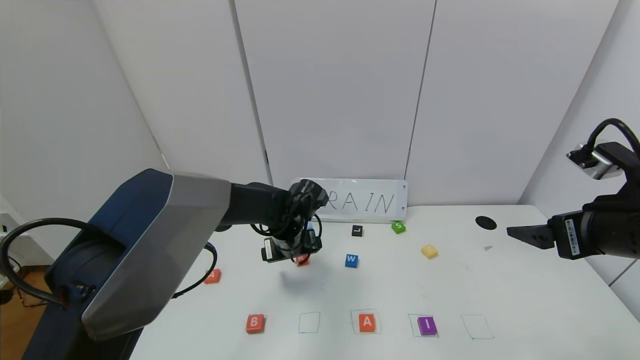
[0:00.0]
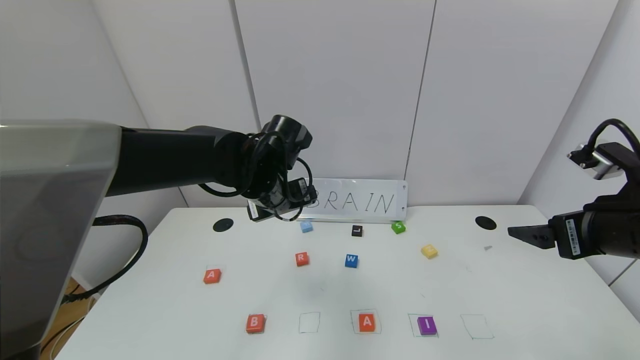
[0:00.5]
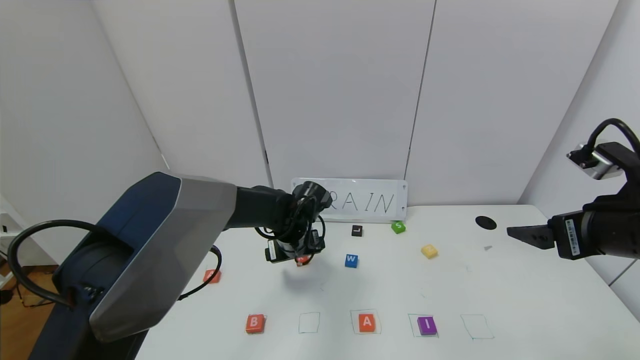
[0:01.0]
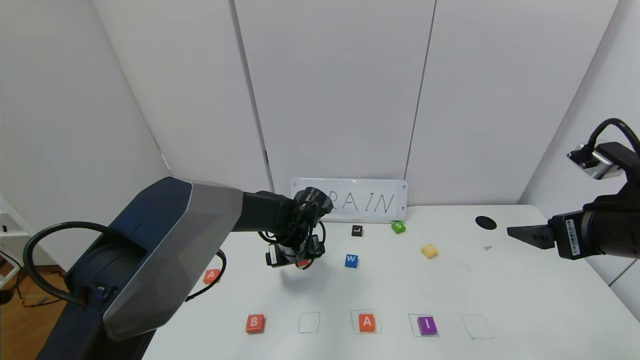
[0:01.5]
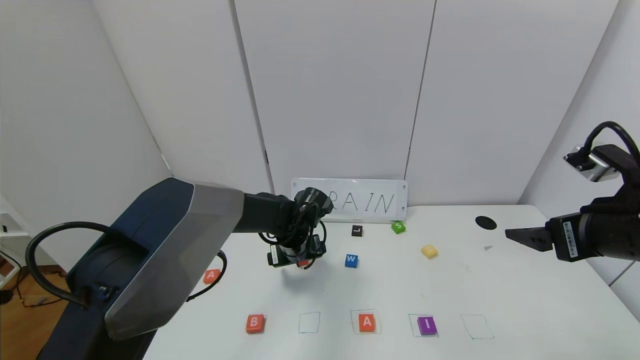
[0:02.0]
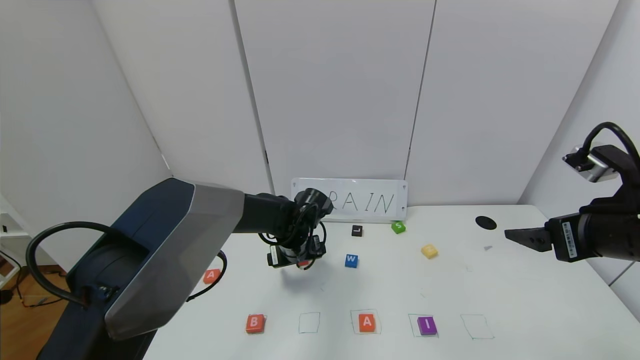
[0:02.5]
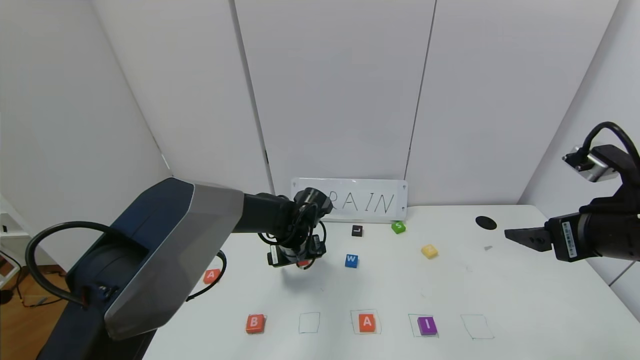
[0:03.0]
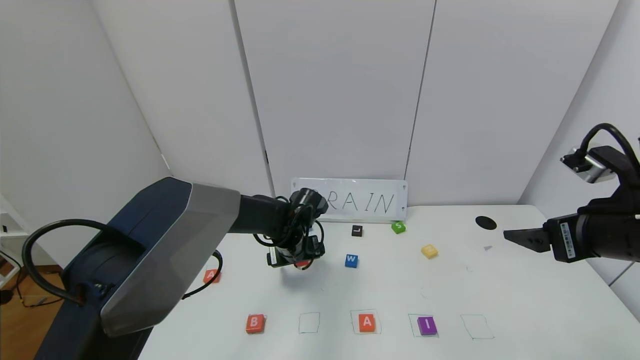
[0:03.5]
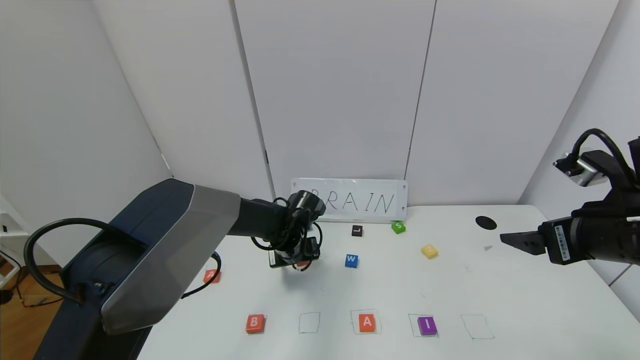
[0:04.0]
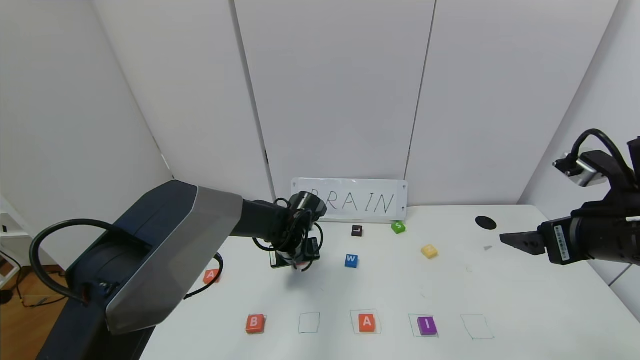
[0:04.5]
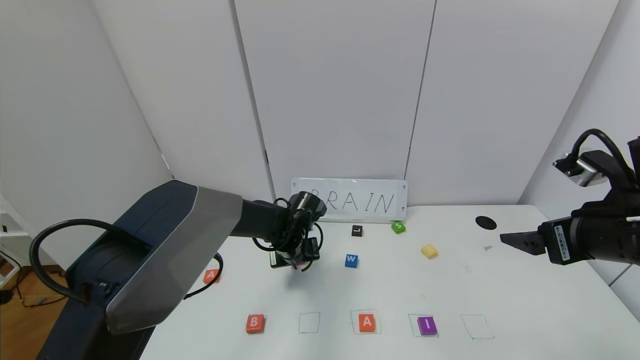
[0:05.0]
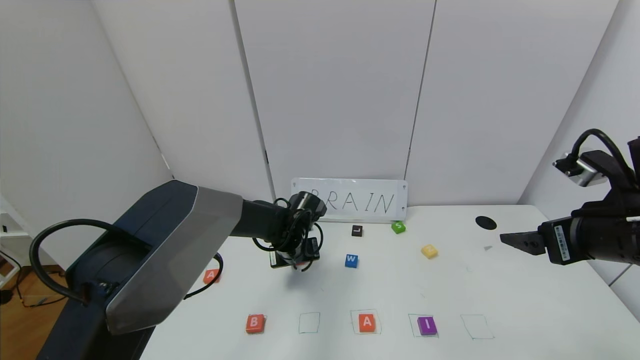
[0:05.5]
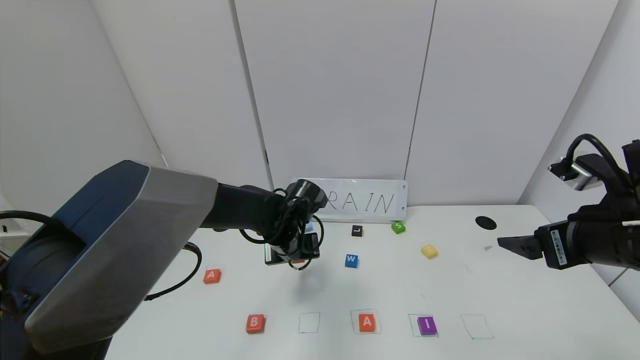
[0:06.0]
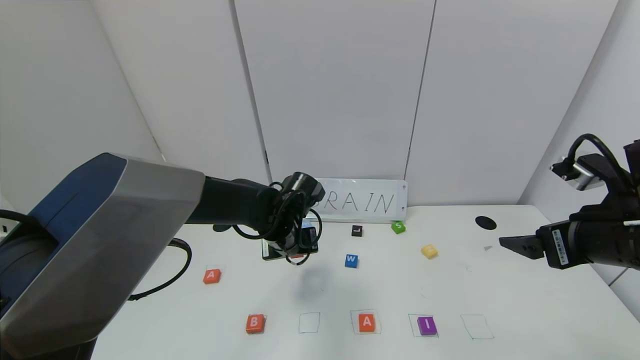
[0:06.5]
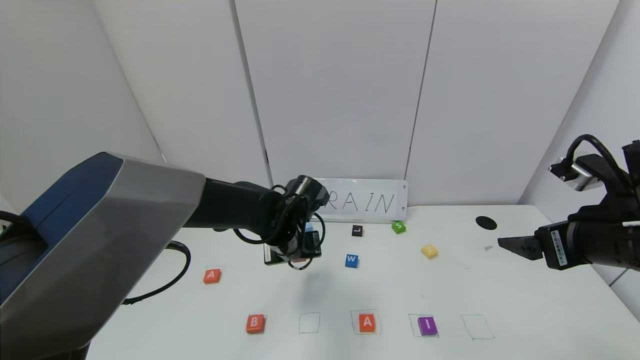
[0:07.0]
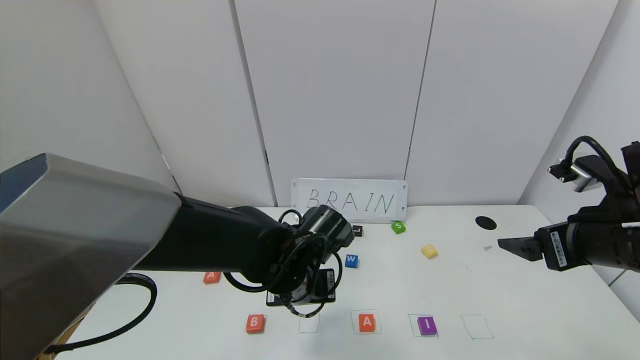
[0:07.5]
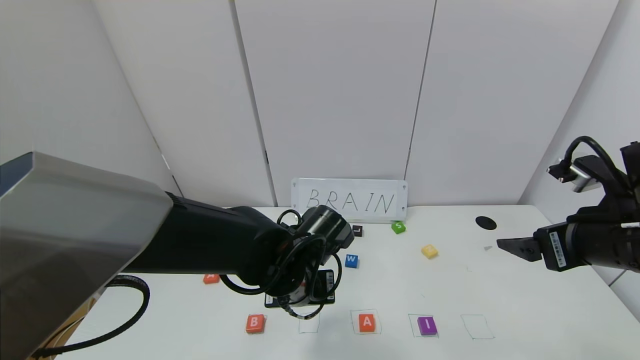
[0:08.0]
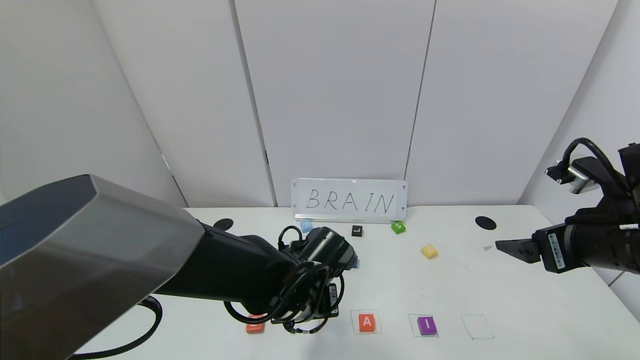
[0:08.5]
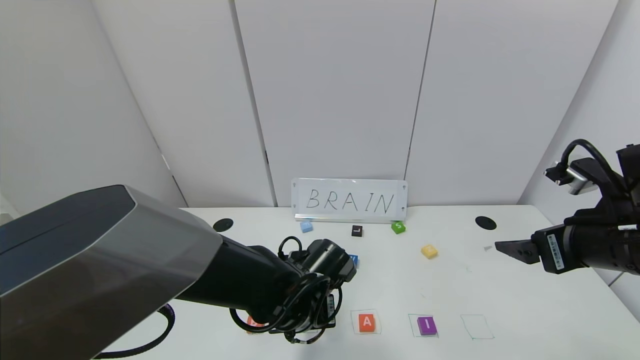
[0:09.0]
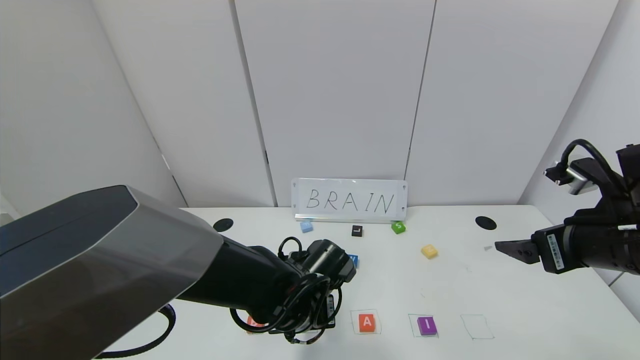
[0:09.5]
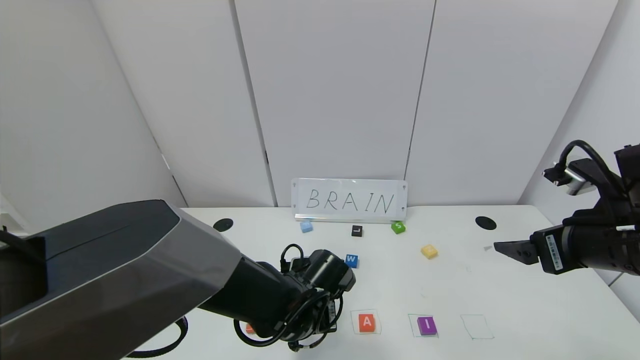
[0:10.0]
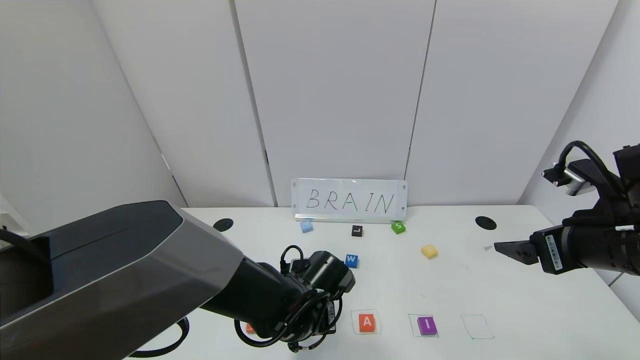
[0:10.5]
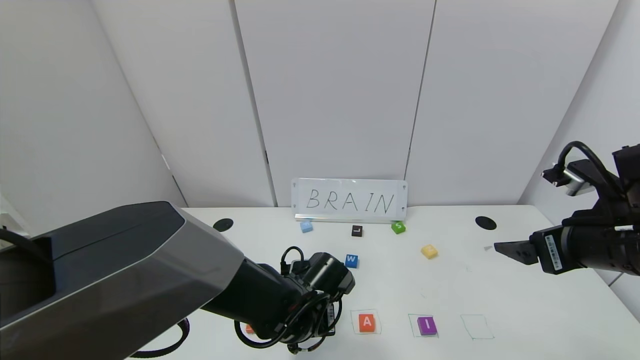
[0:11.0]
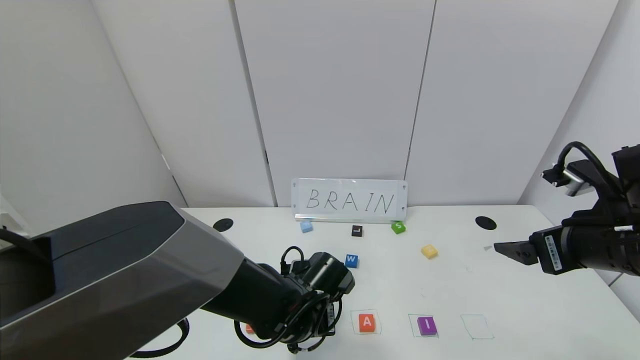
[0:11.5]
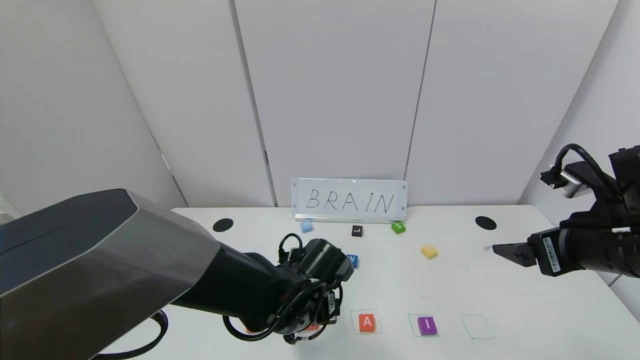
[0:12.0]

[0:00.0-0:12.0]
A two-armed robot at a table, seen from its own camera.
Task of the whole recording: use the gripper to find blocks with the letters b, a, a, and i on the table and arrange them into BAAI, then find r and N and turn the arranged baai into brian.
Step, 0:00.0 to 0:11.5: Place the block R in the second location.
0:00.0 to 0:02.0: The left gripper moves approximately 10 cm upward and comes back.
0:02.0 to 0:04.0: There are only small adjustments of the grippers.
0:04.0 to 0:06.0: The left gripper changes place by roughly 5 cm, and closes up.
0:06.0 to 0:08.0: The left gripper shifts roughly 10 cm backward.
0:08.0 to 0:10.0: The left gripper moves downward, roughly 10 cm.
0:10.0 to 0:12.0: The left gripper opens its fingers.

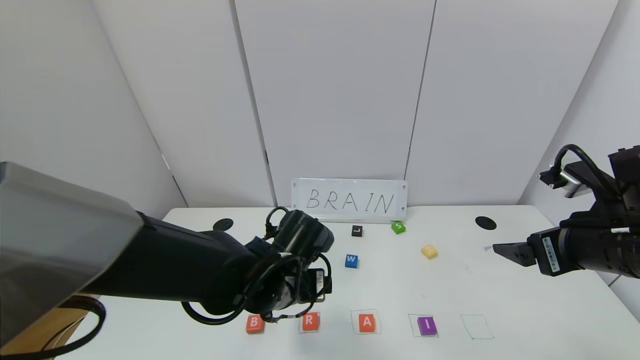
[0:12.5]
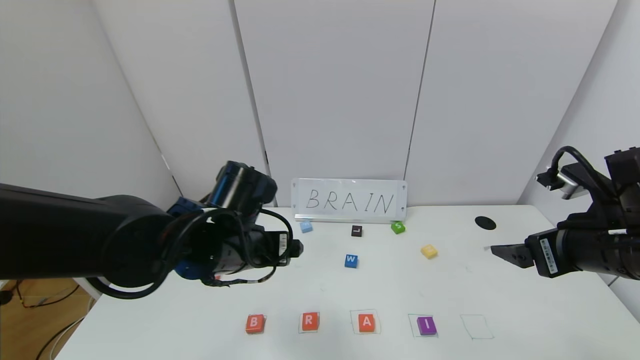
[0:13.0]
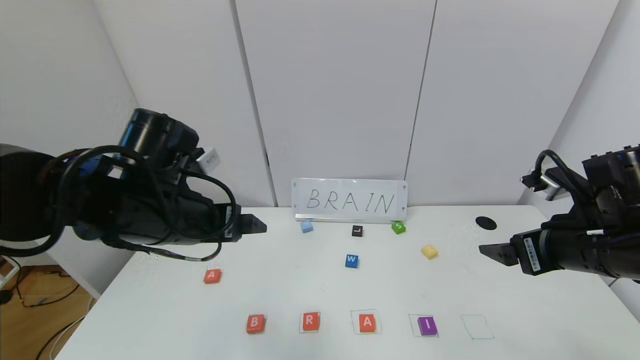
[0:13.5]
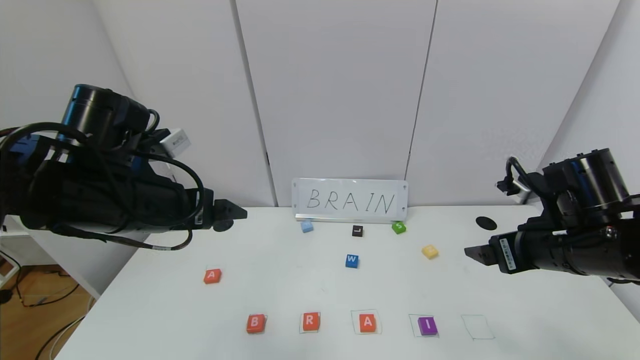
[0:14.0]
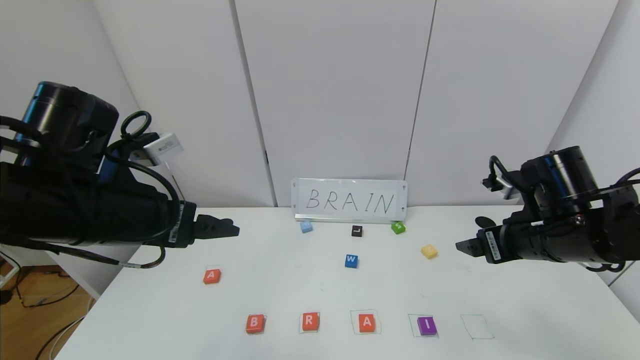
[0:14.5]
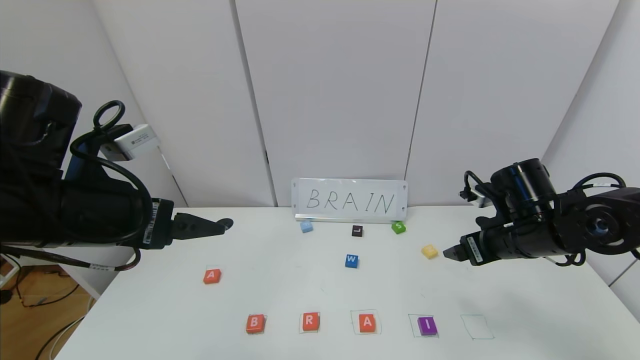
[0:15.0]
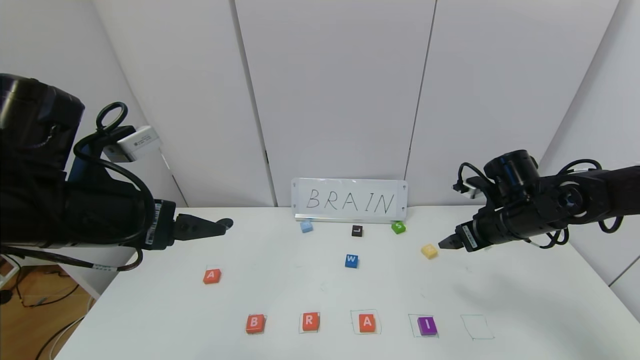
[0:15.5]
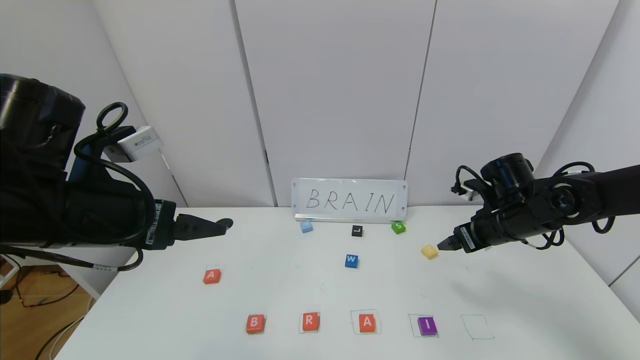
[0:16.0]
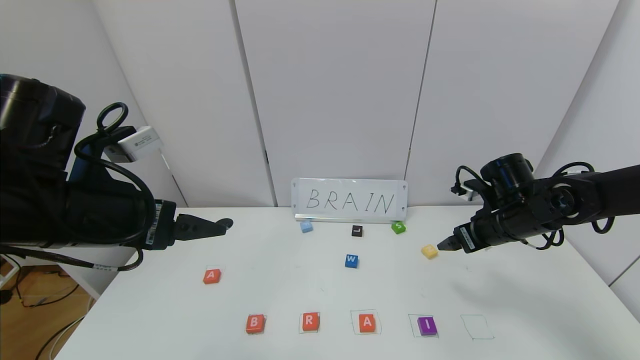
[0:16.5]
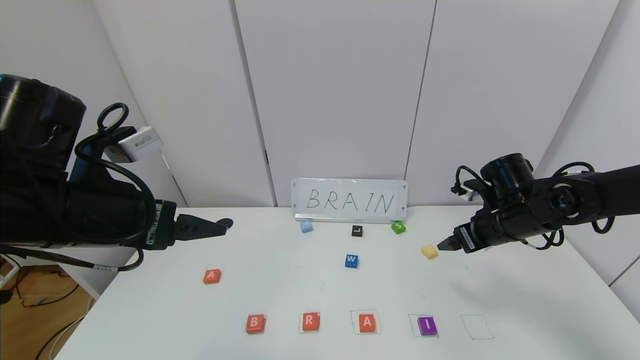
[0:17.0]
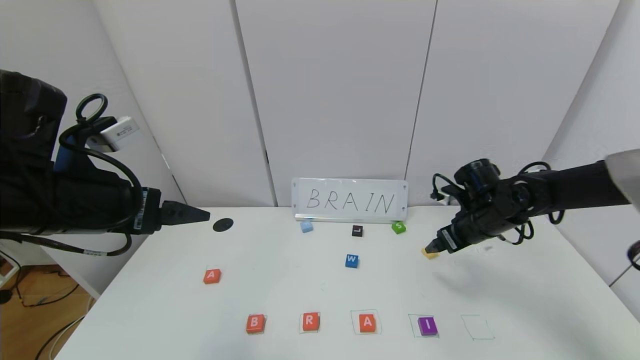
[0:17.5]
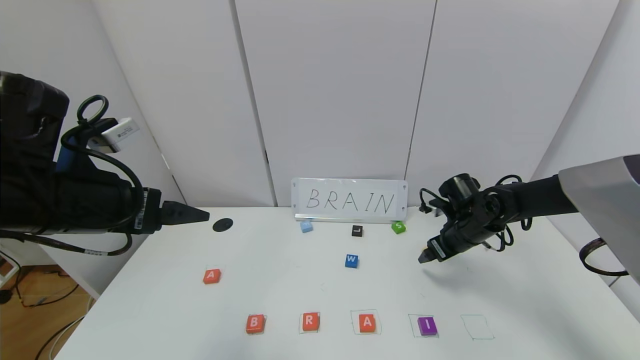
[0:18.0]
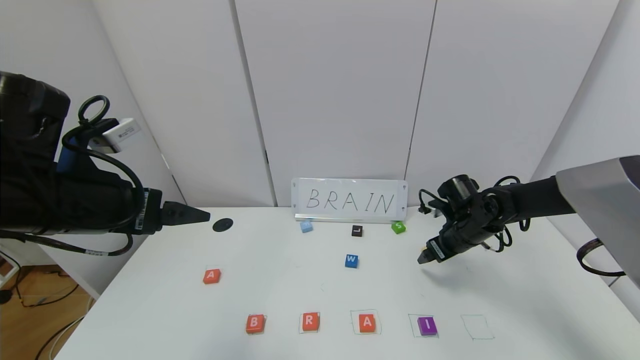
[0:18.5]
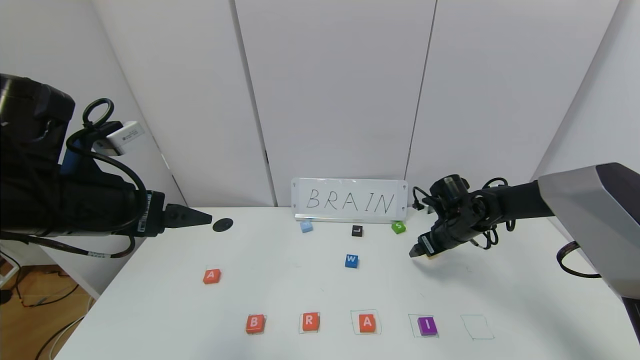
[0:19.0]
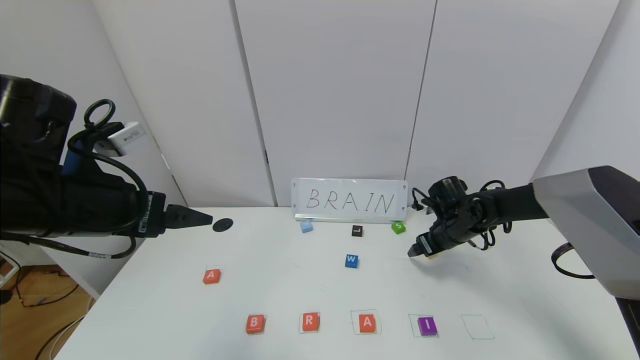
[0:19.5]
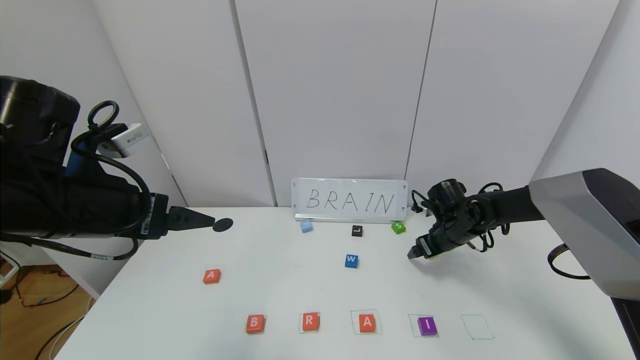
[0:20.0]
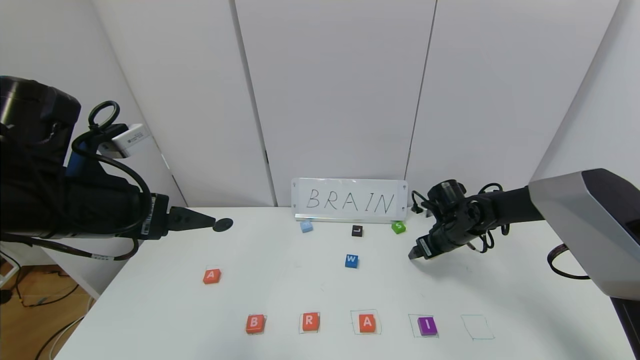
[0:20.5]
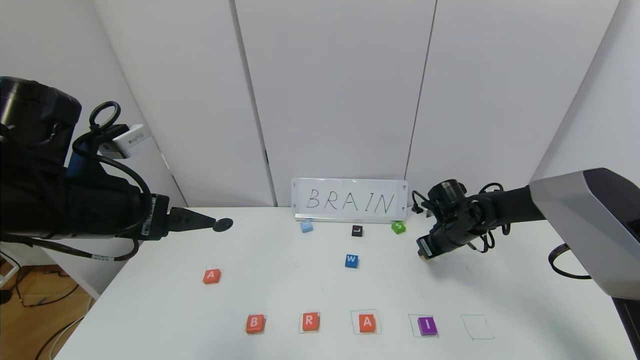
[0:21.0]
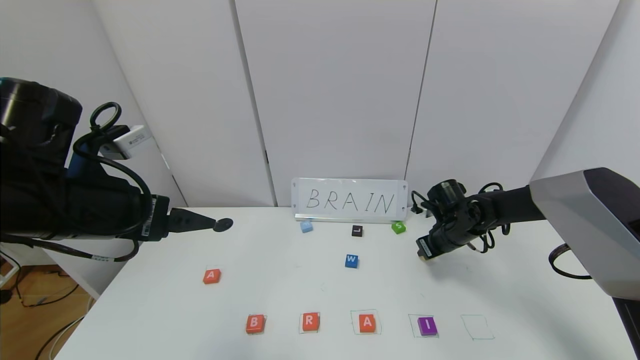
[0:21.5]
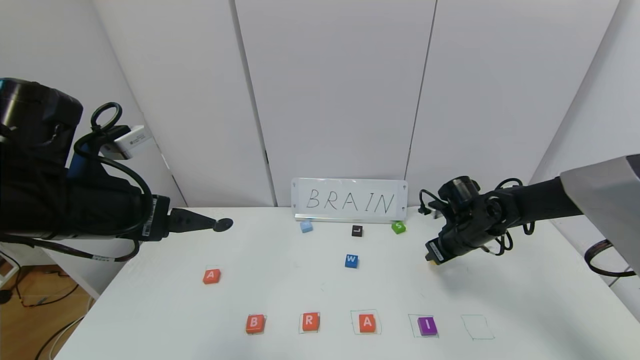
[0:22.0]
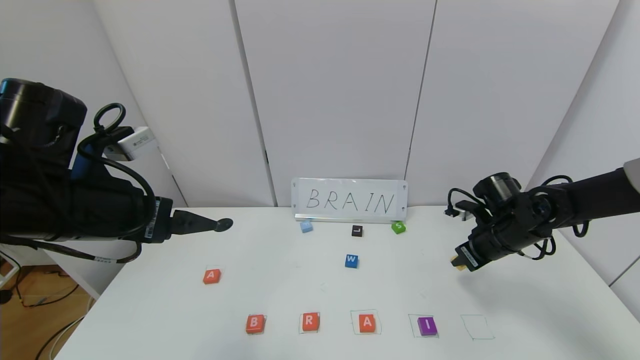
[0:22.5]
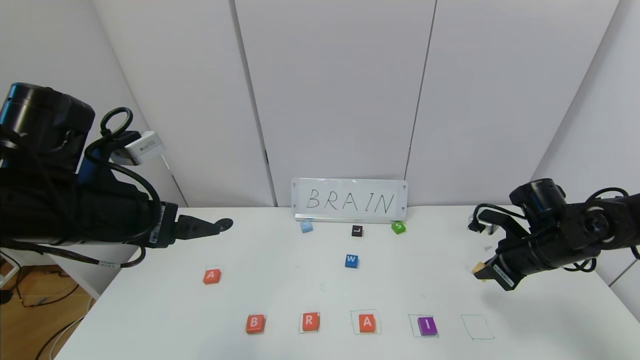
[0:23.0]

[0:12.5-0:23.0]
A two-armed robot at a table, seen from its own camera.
Task of the whole recording: use the gripper to find blocks with the letters b, a, a, and i on the table and arrange them into BAAI, then find r and N and turn the arranged baai into brian.
0:12.5 to 0:14.5: The left gripper goes approximately 20 cm to the left and upward. Meanwhile the right gripper shifts about 5 cm forward.
0:14.5 to 0:16.5: The right gripper moves forward, about 10 cm.
0:16.5 to 0:19.0: The right gripper is displaced forward and downward by about 10 cm.
0:19.0 to 0:21.0: The right gripper closes.
0:21.0 to 0:23.0: The right gripper is displaced backward, to the right and upward by about 15 cm.
